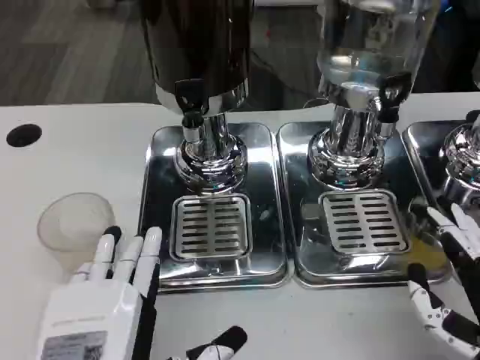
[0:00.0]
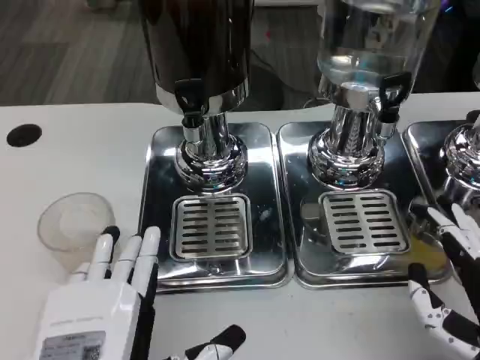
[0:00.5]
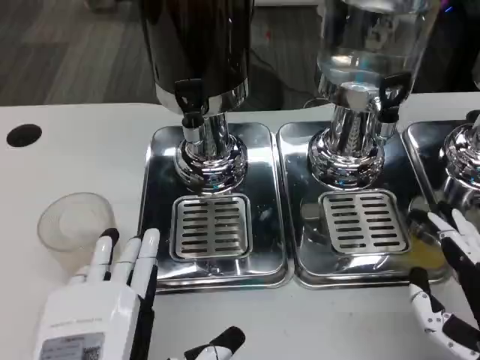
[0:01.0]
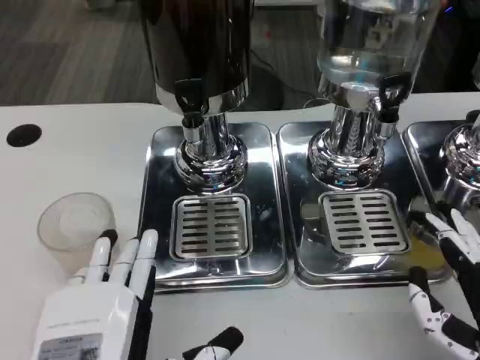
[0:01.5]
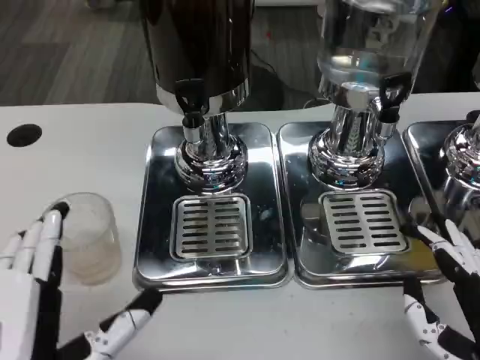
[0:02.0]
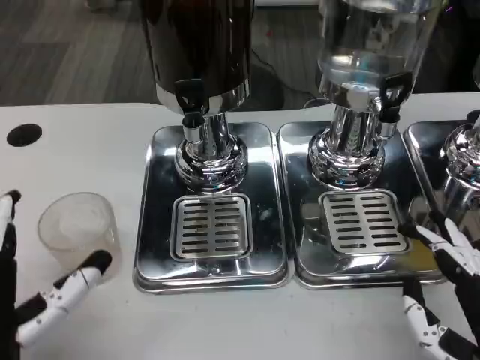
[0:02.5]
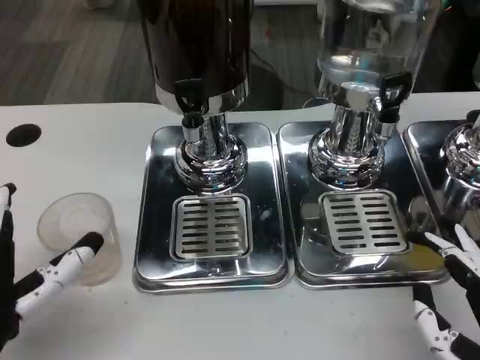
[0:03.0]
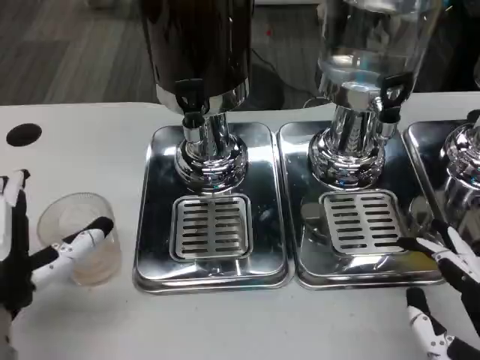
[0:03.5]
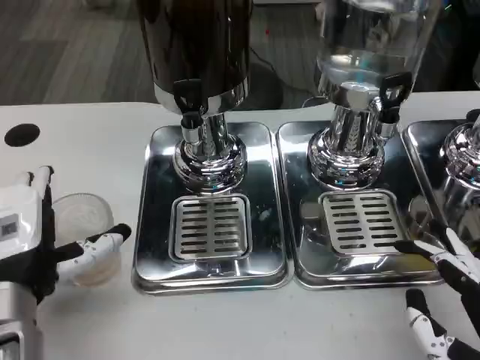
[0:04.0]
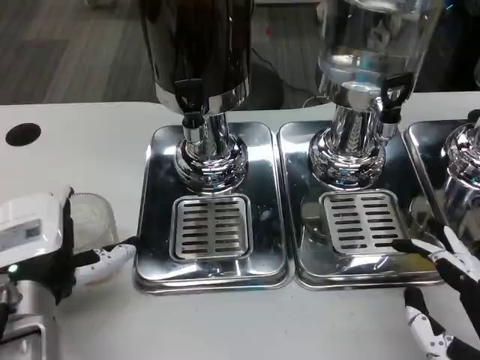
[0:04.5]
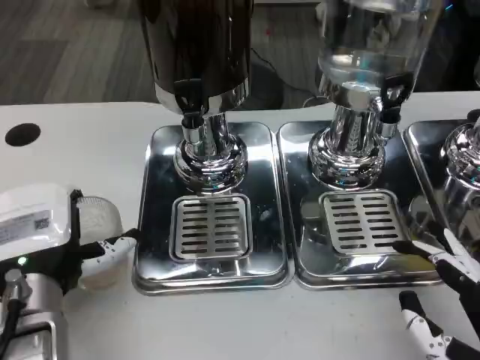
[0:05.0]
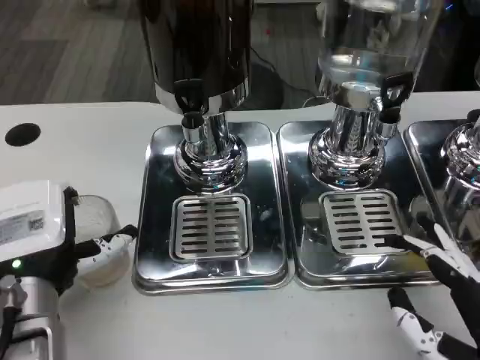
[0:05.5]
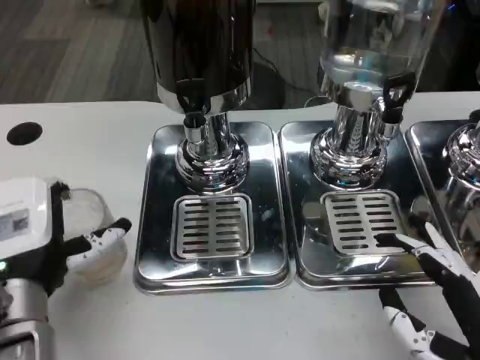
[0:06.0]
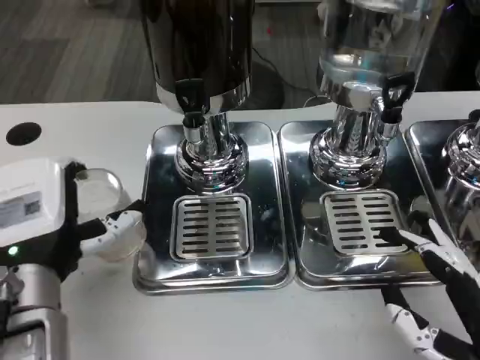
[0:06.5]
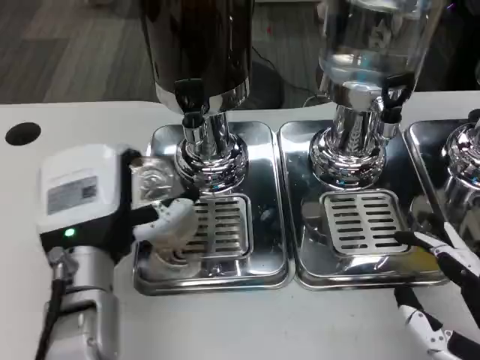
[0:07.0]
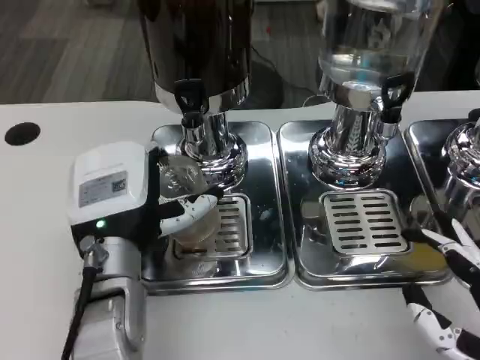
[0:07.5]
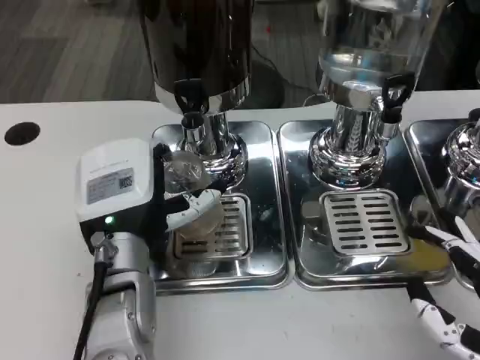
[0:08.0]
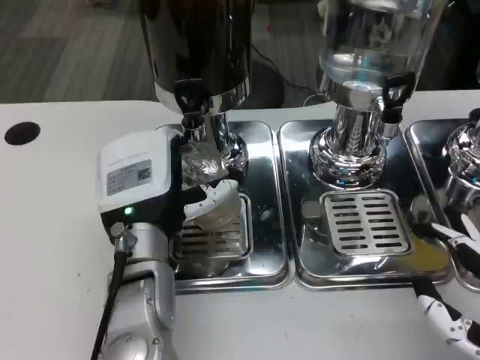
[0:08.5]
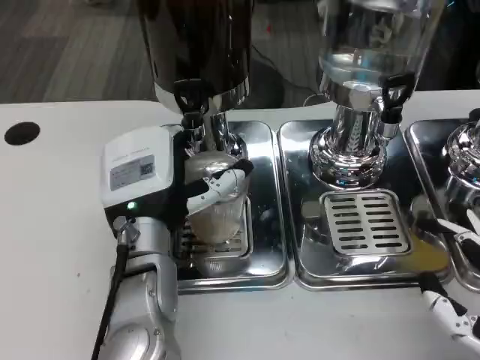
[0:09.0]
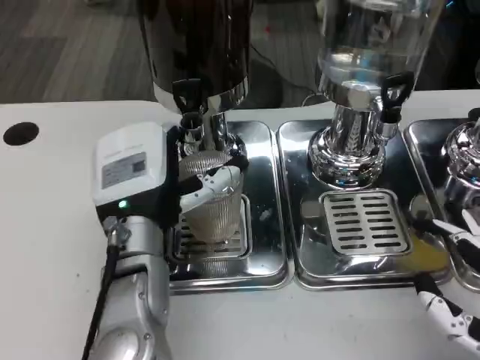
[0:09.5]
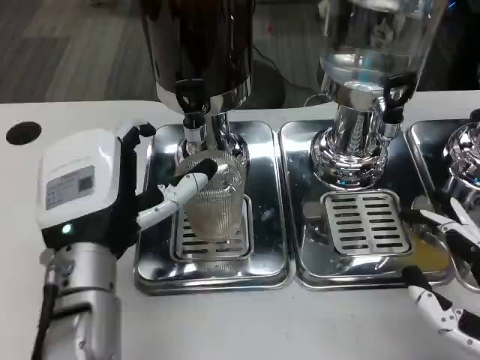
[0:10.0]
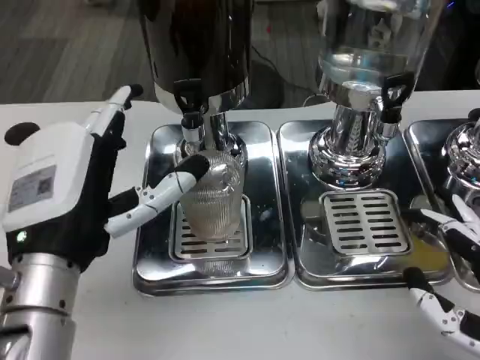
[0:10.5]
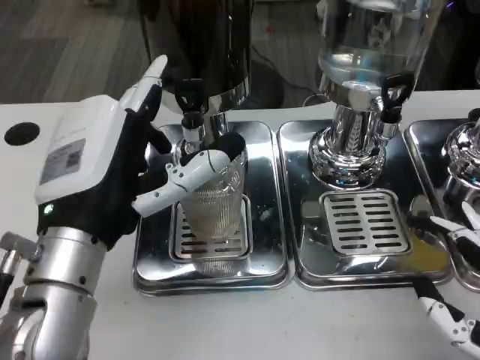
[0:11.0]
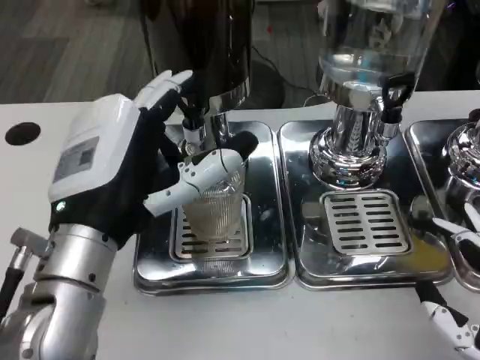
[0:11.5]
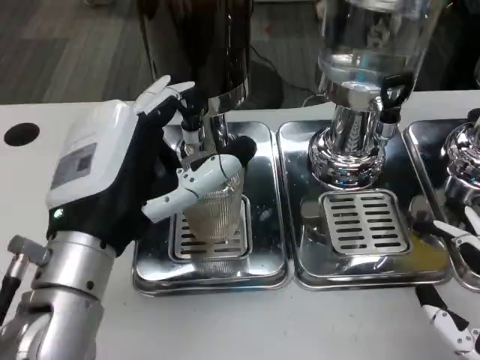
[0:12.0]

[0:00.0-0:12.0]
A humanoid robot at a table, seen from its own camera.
Task of the whole recording: Grasp the cup under the faucet to collect the drink, then remove the cup.
0:00.0 to 0:02.0: The hands make only small movements.
0:02.0 to 0:04.0: The left hand goes some 10 cm forward.
0:06.0 to 0:08.0: The left hand heads to the right, covering roughly 5 cm.

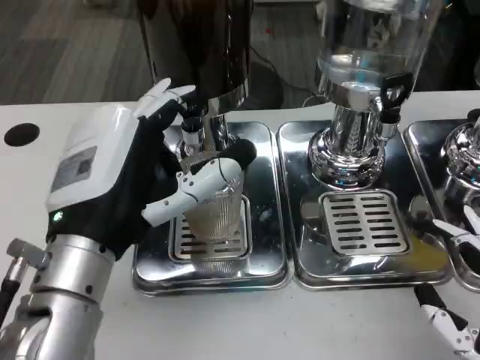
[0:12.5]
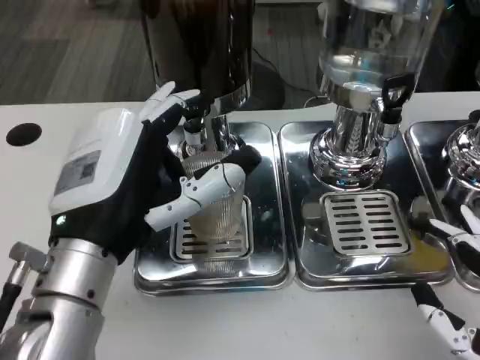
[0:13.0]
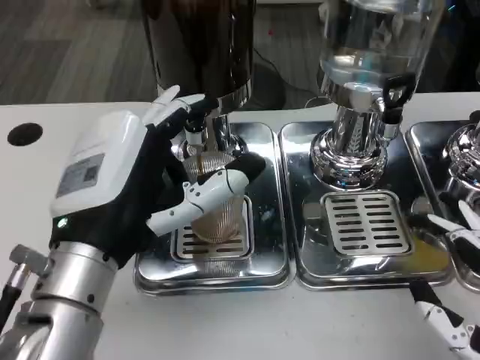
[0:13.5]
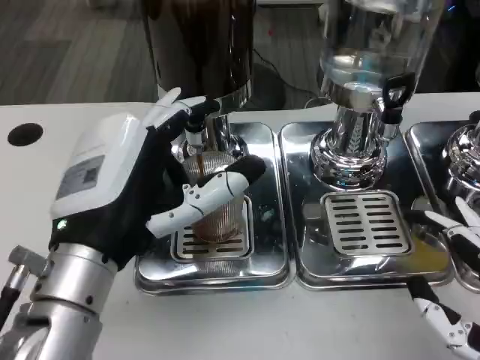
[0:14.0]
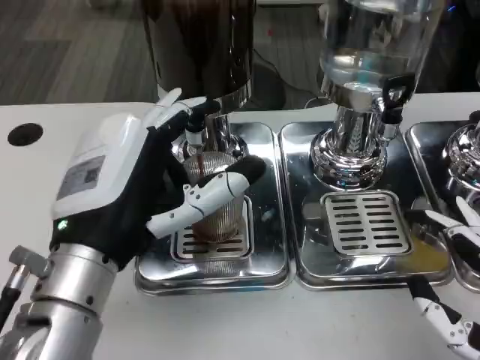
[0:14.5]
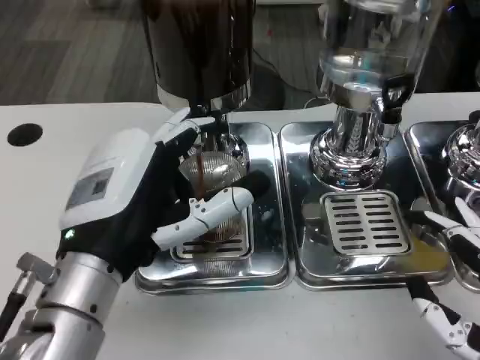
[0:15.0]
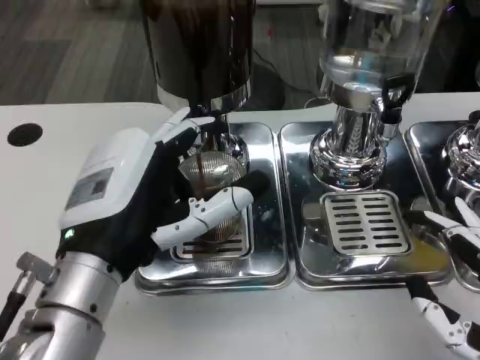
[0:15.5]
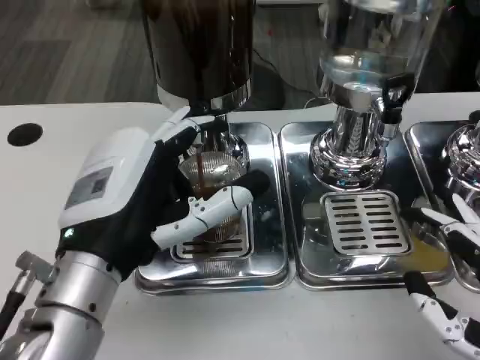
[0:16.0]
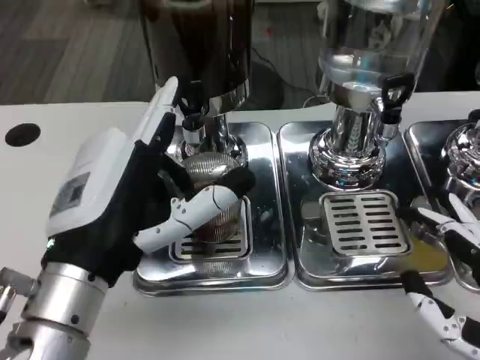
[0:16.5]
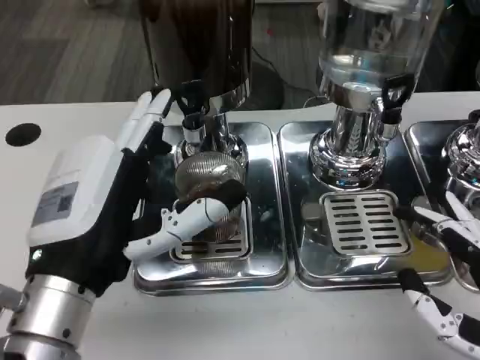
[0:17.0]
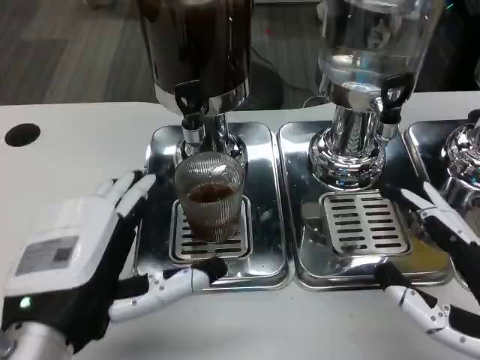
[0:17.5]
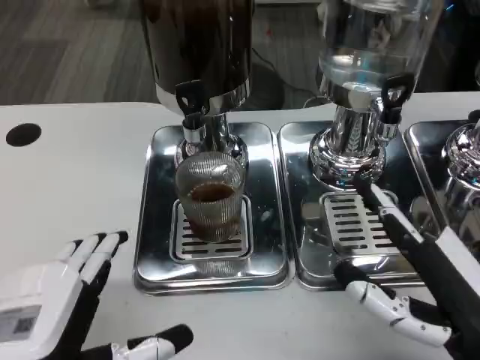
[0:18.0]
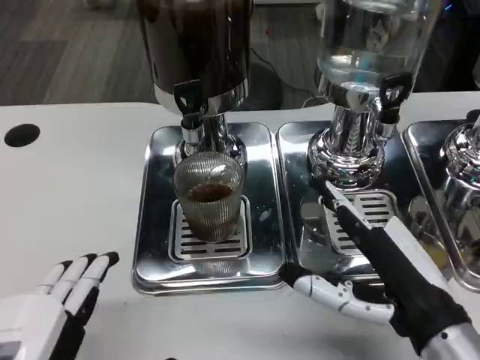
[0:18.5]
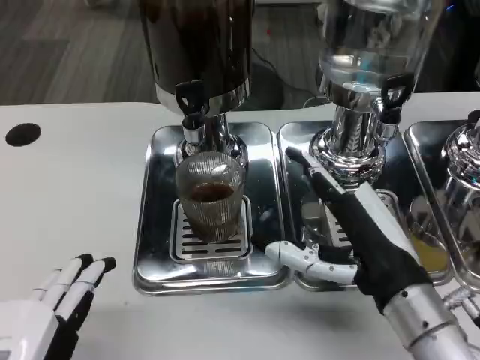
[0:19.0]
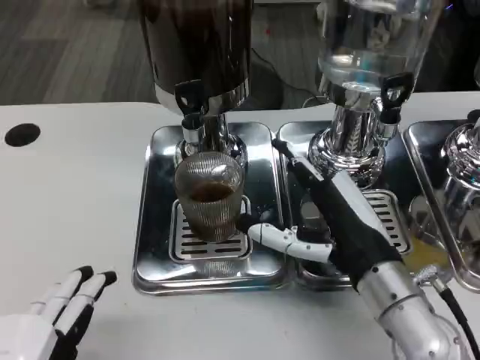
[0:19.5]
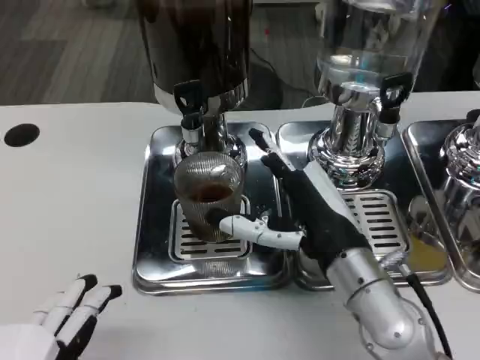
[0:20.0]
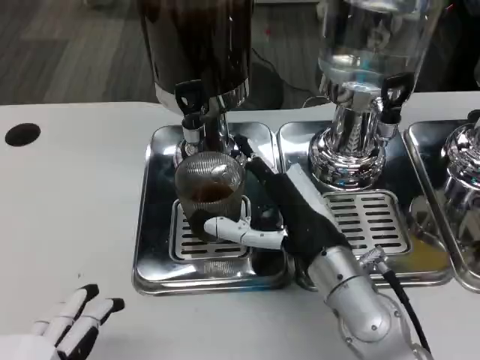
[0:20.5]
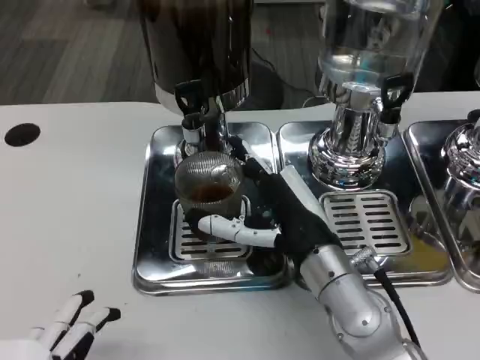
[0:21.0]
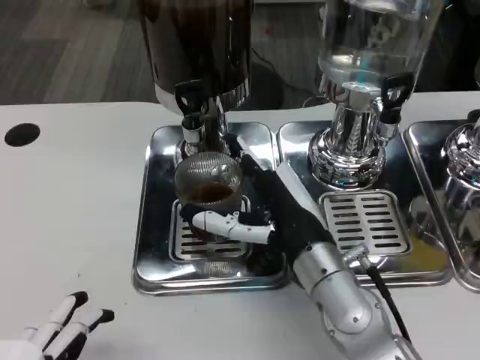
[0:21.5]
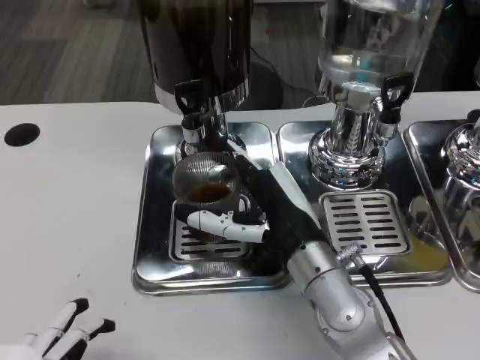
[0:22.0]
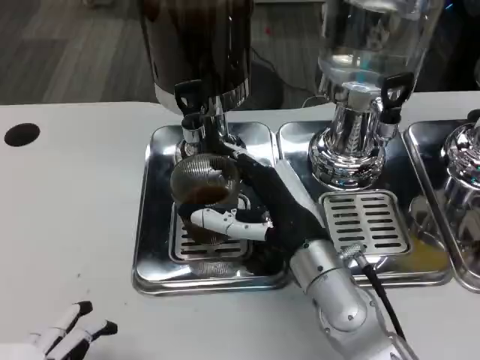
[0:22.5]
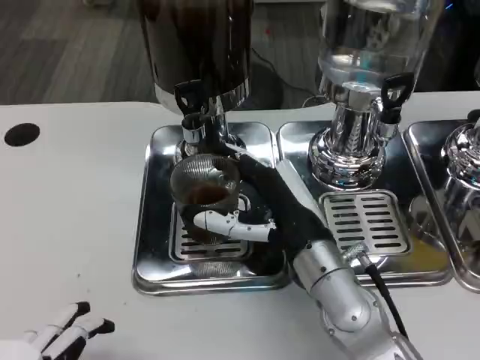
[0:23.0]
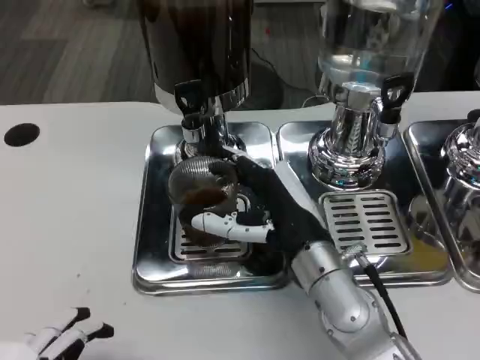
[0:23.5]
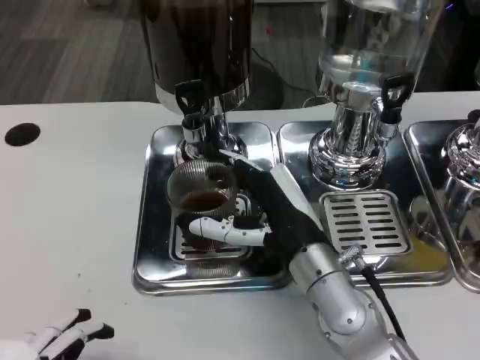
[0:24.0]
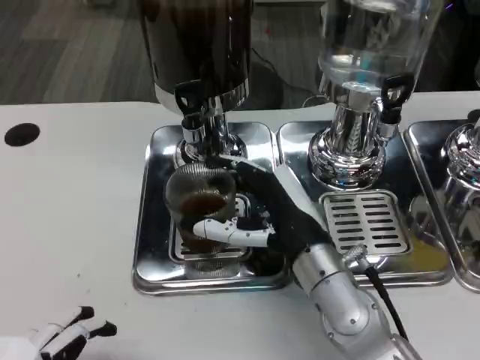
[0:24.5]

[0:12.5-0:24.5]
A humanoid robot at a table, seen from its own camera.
Task of the whole recording: Grasp the cup under the faucet to collect the drink, then remove the cup.
0:14.5 to 0:16.5: The hands move only a little.
0:16.5 to 0:18.5: The right hand goes some 10 cm to the left and forward. The left hand shifts roughly 10 cm backward.
0:18.5 to 0:20.5: The right hand goes some 10 cm to the left and forward.
0:20.5 to 0:22.5: The hands make only small movements.
0:22.5 to 0:24.5: Both hands stay put.

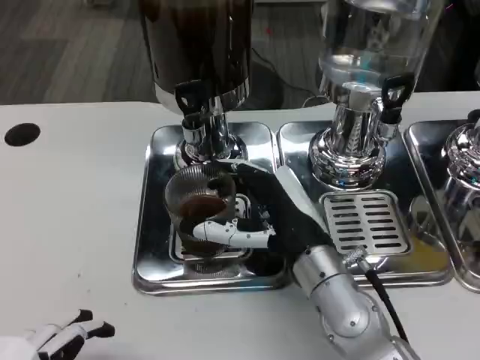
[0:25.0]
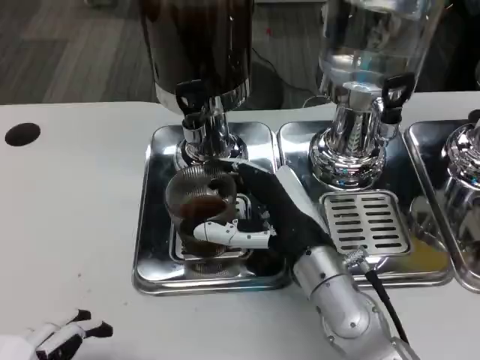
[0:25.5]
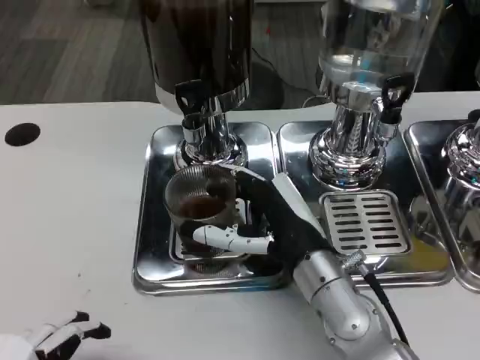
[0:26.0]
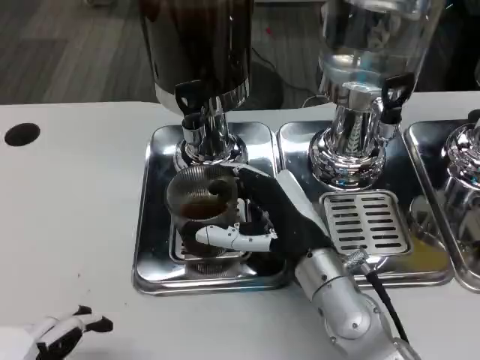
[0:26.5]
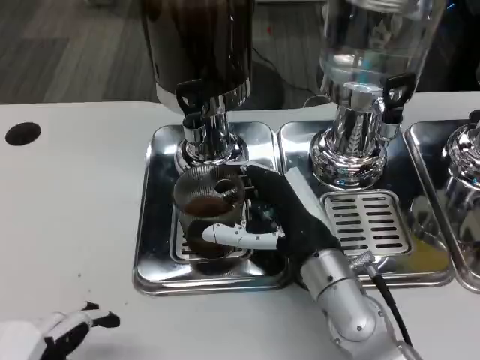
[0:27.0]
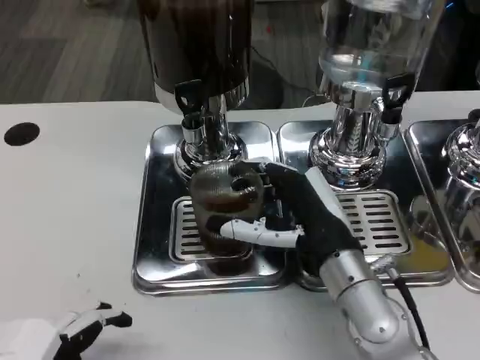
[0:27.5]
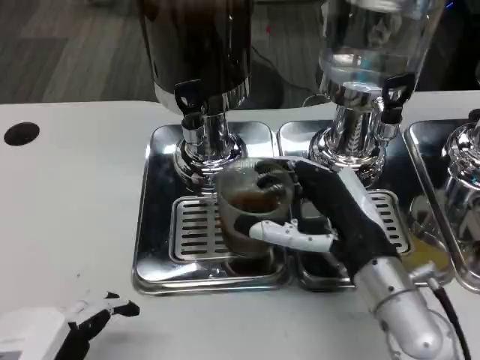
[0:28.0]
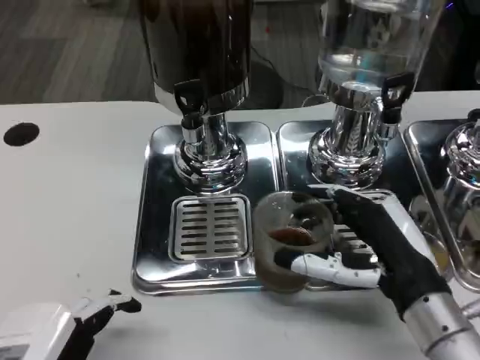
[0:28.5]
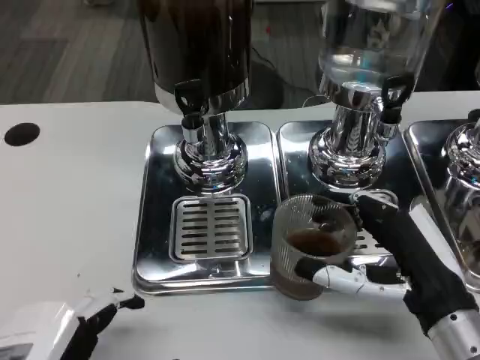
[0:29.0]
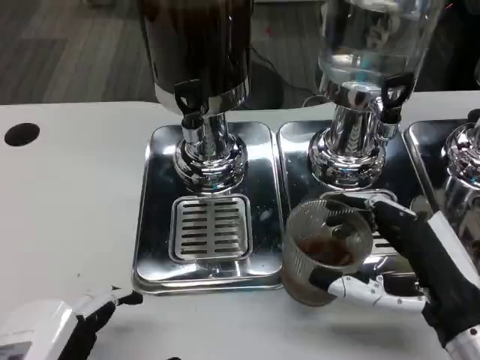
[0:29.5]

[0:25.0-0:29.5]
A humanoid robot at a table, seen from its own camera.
Task of the whole recording: Grasp the cup under the faucet to collect the drink, then remove the cup.
0:25.0 to 0:27.0: Both hands stay about where they are.
0:27.0 to 0:29.5: The right hand shifts some 15 cm to the right and backward.
